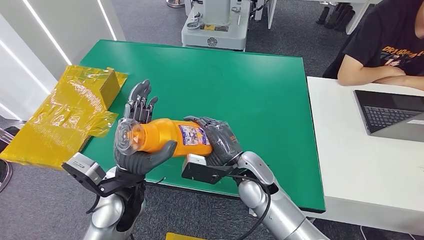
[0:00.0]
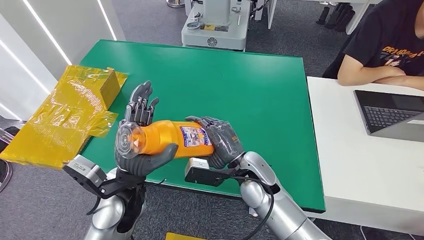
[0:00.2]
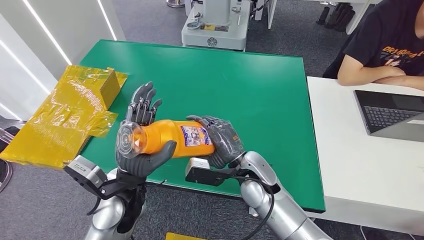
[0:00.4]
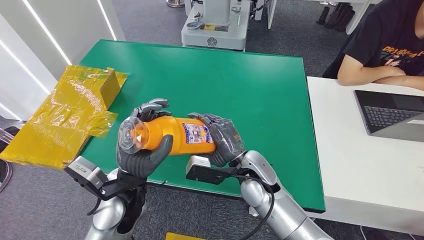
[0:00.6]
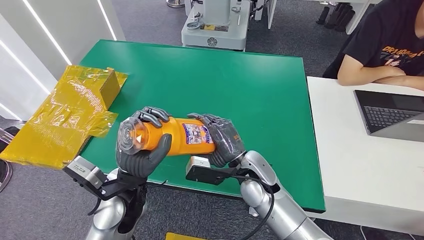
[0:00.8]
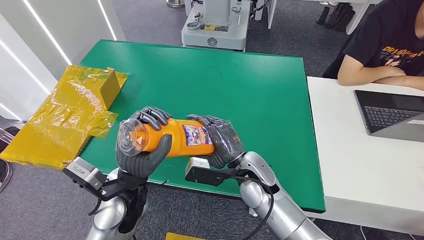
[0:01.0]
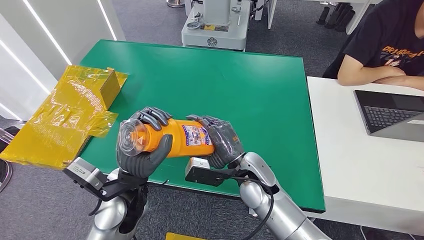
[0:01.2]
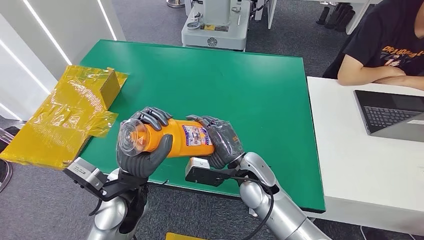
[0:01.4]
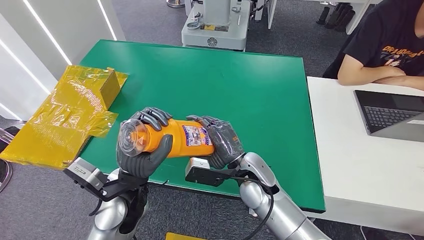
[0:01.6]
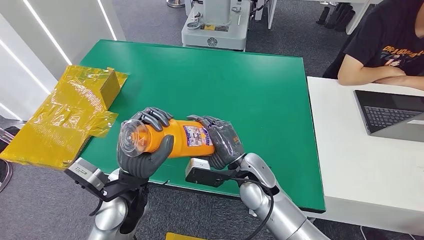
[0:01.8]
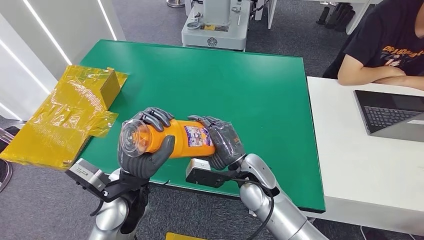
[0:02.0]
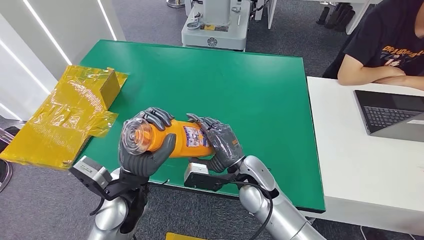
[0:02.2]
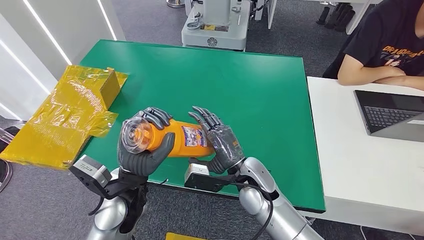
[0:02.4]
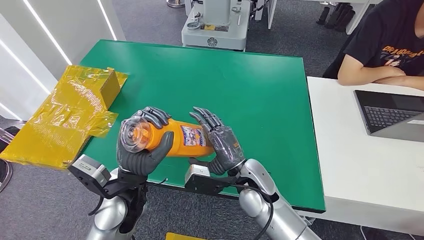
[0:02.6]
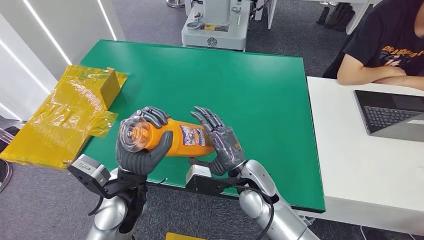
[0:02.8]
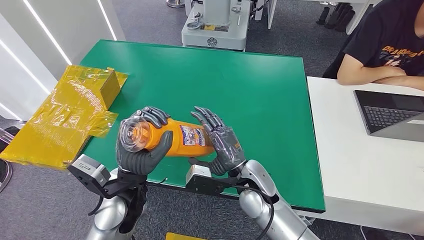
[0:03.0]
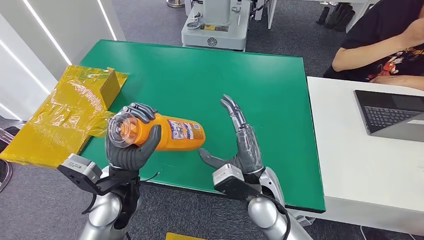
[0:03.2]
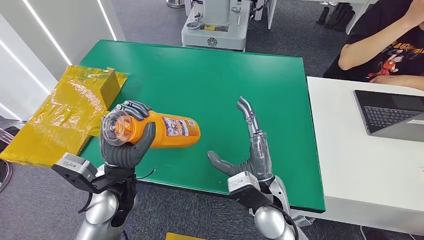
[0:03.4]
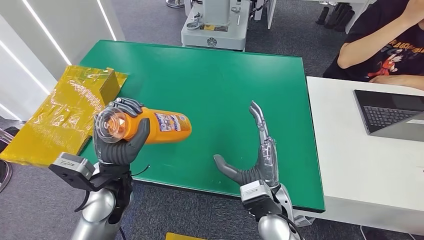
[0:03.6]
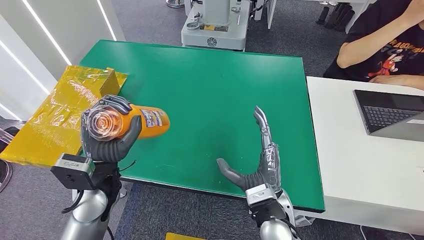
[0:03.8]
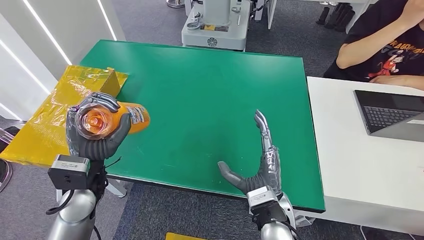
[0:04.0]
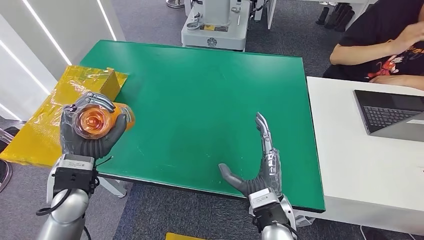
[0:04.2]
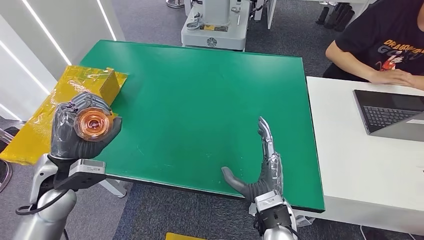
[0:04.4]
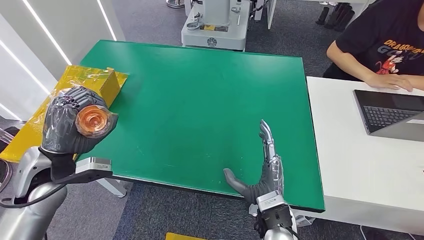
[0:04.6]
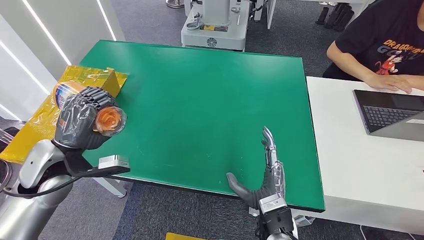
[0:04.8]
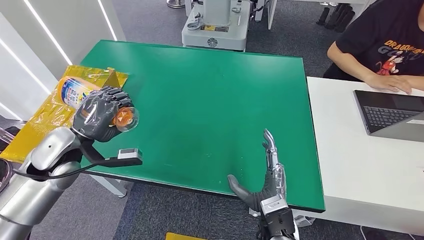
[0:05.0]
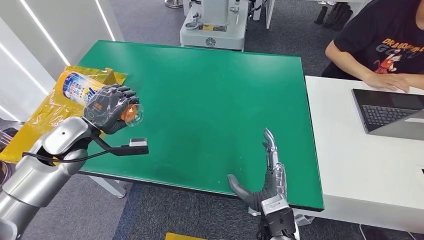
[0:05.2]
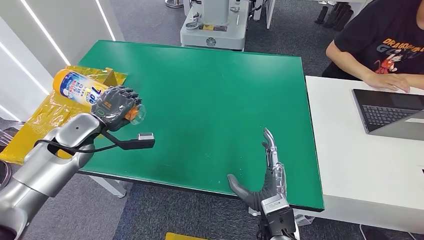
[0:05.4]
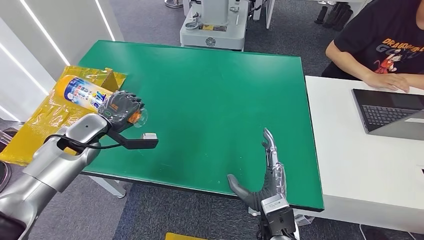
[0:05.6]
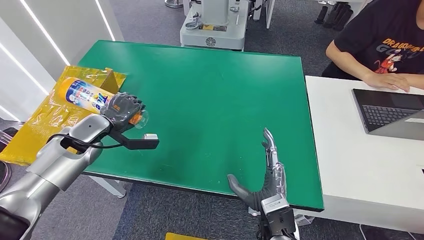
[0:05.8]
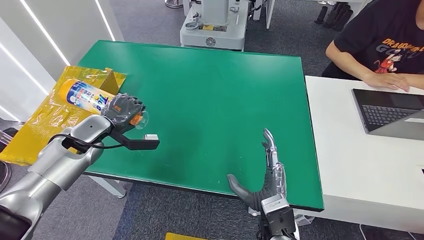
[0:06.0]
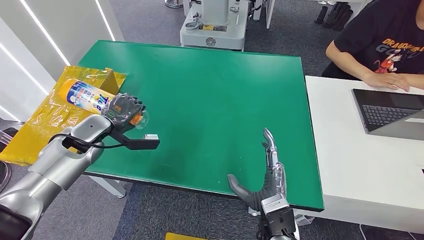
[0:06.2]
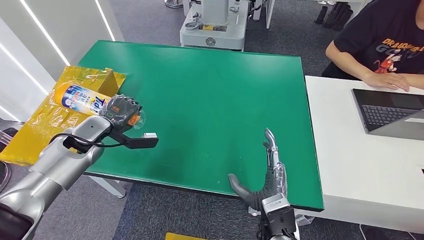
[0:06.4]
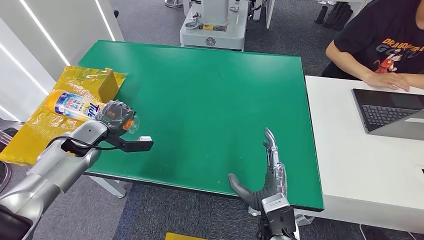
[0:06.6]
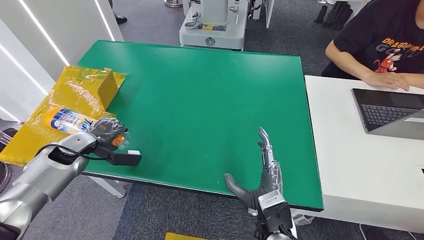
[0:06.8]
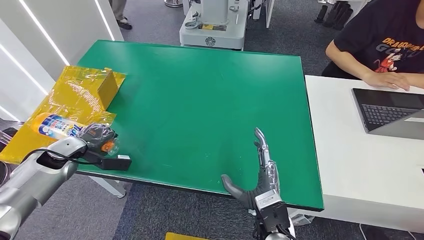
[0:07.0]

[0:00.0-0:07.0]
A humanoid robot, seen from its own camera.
Step, 0:00.0 to 0:07.0: Turn the bottle to the front side.
0:00.0 to 0:02.8: The hands make only small movements.
0:05.6 to 0:07.0: The left hand shifts about 10 cm to the left and backward.
